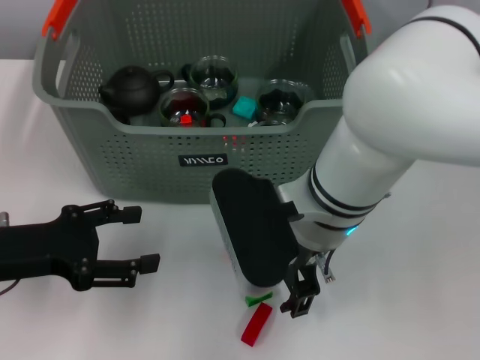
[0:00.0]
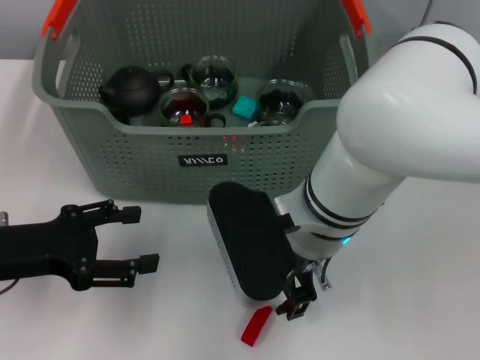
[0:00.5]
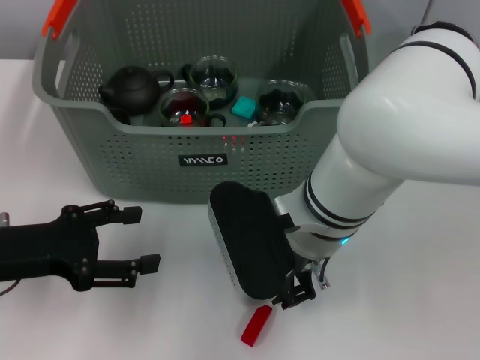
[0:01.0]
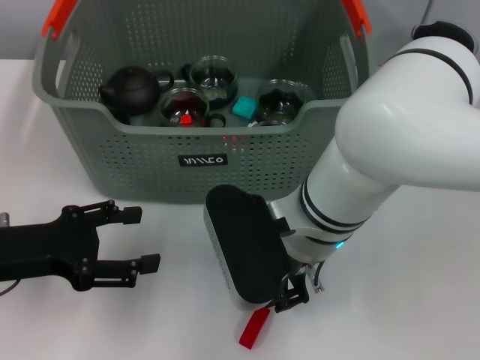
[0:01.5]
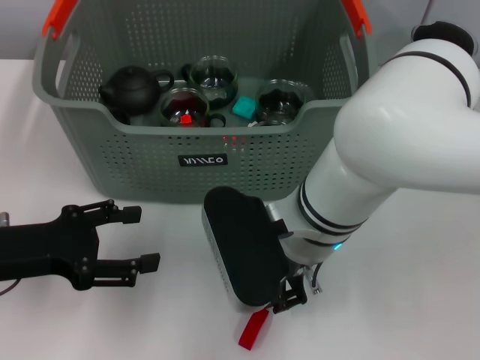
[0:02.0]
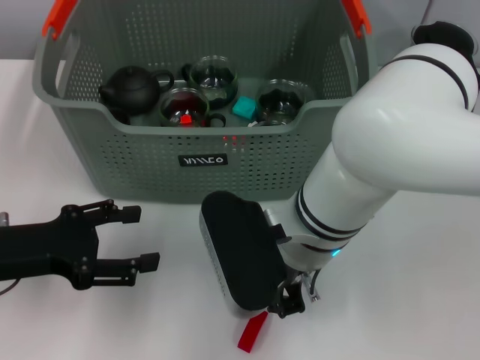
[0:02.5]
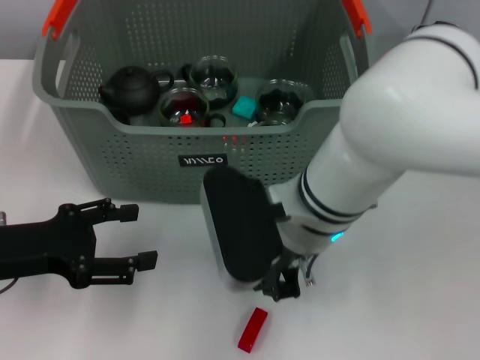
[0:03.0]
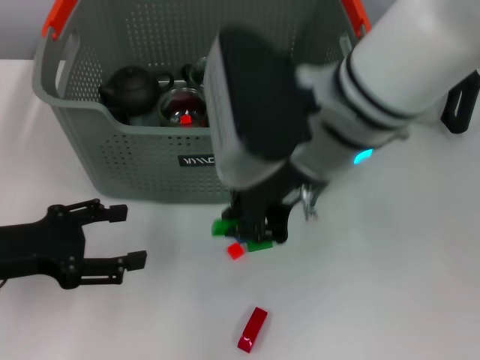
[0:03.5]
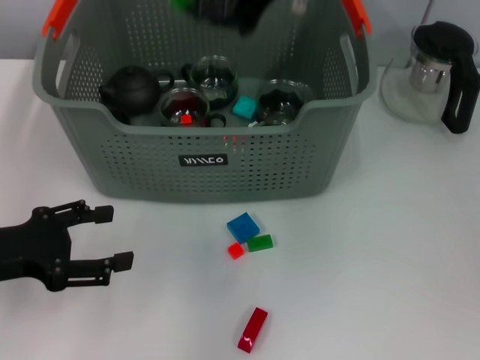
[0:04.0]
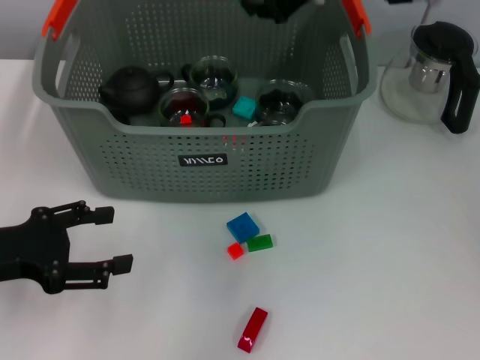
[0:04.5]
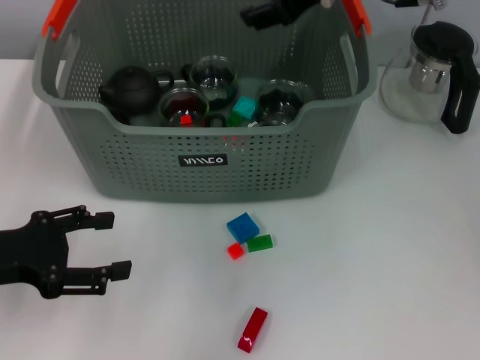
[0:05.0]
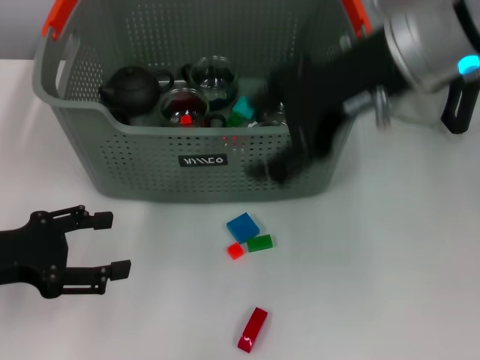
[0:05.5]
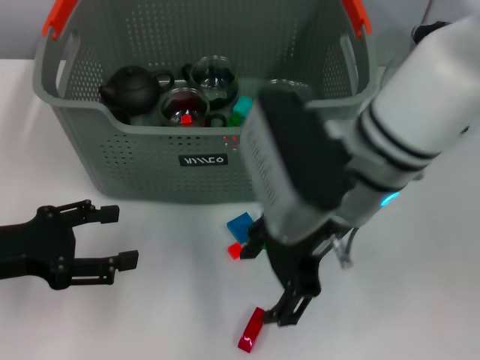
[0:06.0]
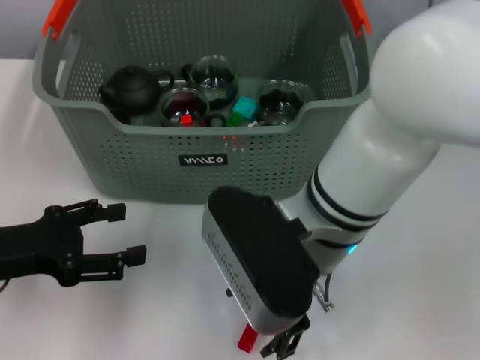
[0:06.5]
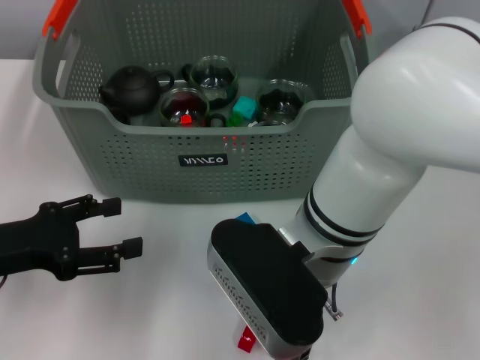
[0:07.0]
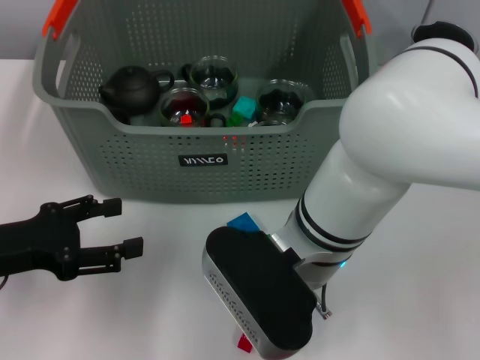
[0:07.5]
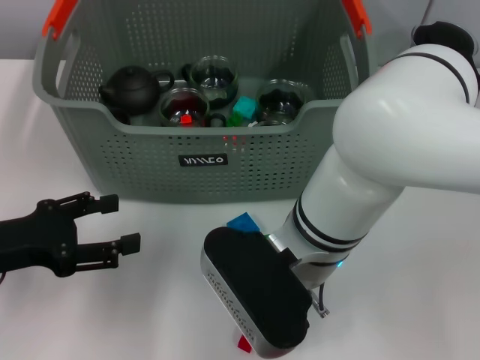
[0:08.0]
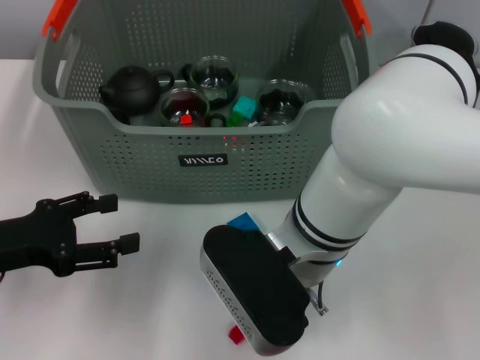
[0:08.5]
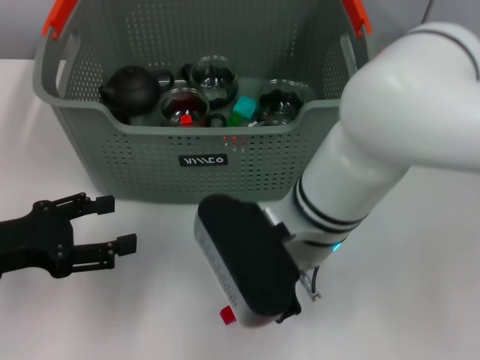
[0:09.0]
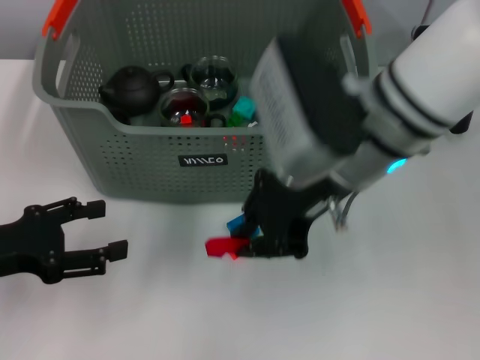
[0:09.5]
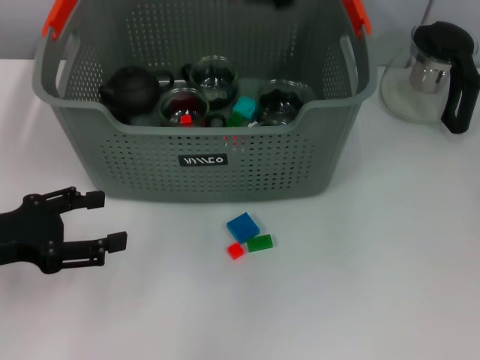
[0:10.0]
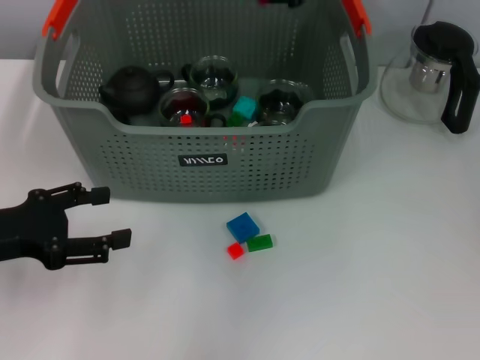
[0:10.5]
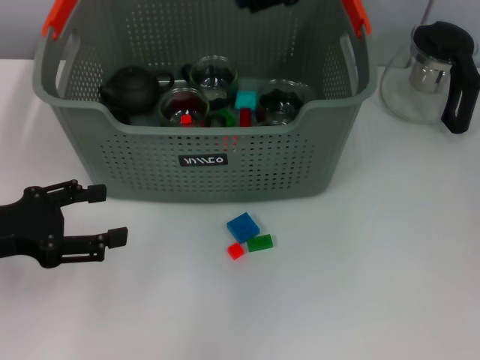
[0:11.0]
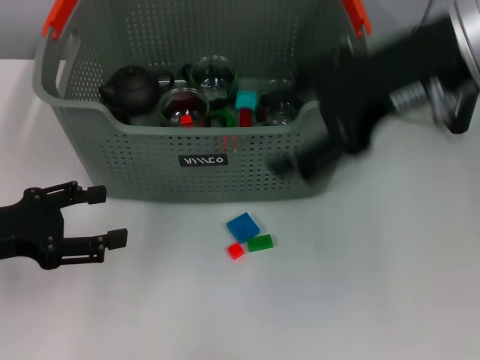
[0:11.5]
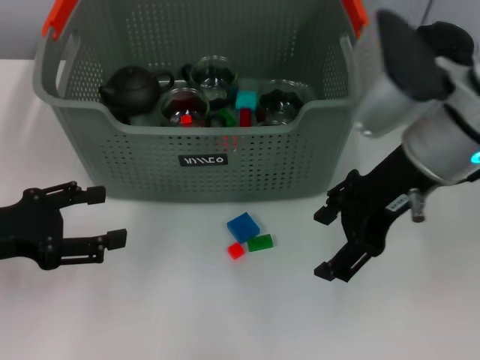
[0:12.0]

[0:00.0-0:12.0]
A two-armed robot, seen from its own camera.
Task of the whole recording: pick up the teacup on the table and place it into the storage bin, pick up the block on the table and place it into the storage bin.
Step, 0:00.0 to 0:02.0: Grasp the green block with right gripper.
Step, 0:02.5 to 0:04.5: Place the green block in the storage box with right gripper.
Step, 0:05.0 to 0:08.5: Grasp the red block with right gripper.
Step, 0:09.0 to 0:10.5: Place the red block in the storage box with right gripper.
0:00.0 to 0:02.0: The right gripper closes up.
0:02.0 to 0:04.0: The right gripper shifts roughly 20 cm upward, and closes up.
0:04.0 to 0:06.0: The right gripper is displaced downward by approximately 15 cm, and opens.
0:06.0 to 0:08.0: The right gripper moves downward, roughly 5 cm, and closes.
0:08.0 to 0:10.0: The right gripper moves upward, forward and to the right, about 25 cm, and closes.
0:10.0 to 0:12.0: The right gripper goes some 10 cm downward and backward, and opens up.

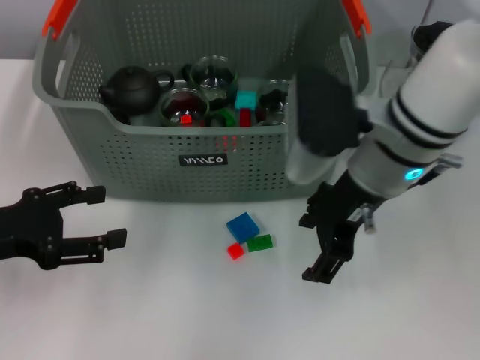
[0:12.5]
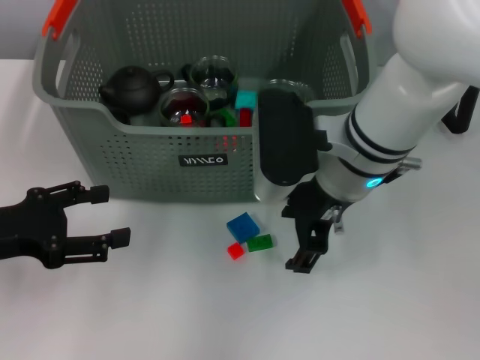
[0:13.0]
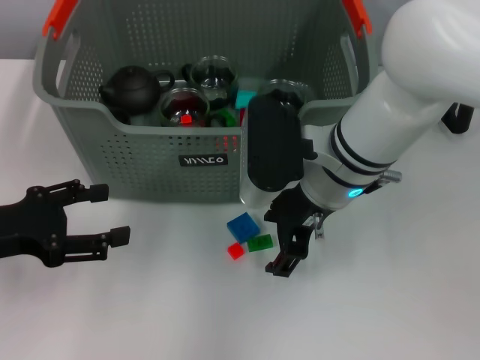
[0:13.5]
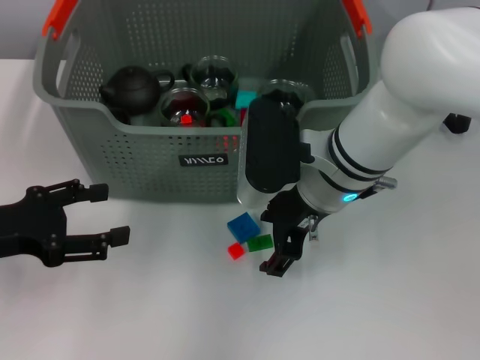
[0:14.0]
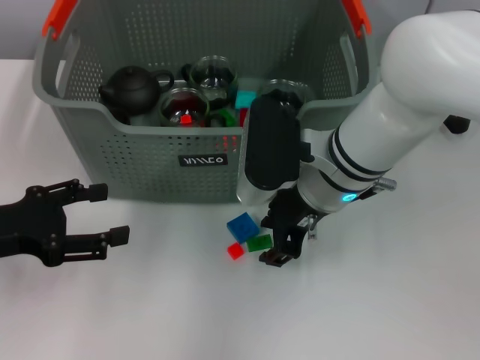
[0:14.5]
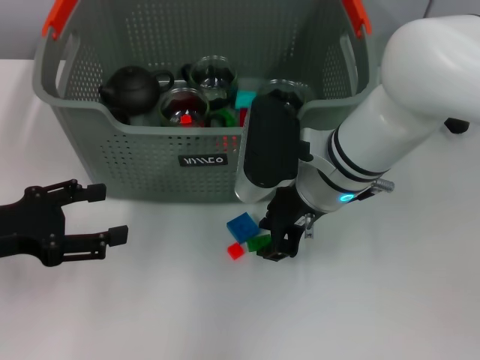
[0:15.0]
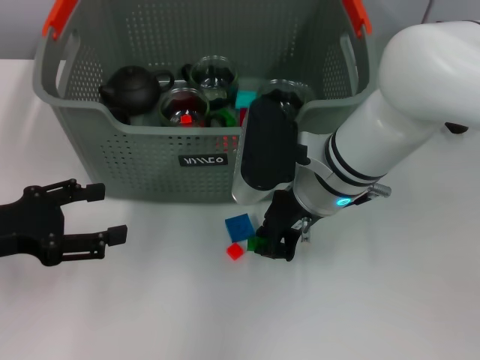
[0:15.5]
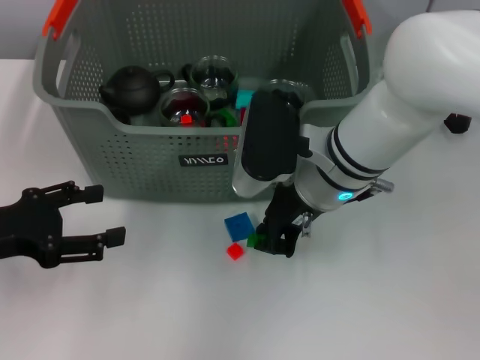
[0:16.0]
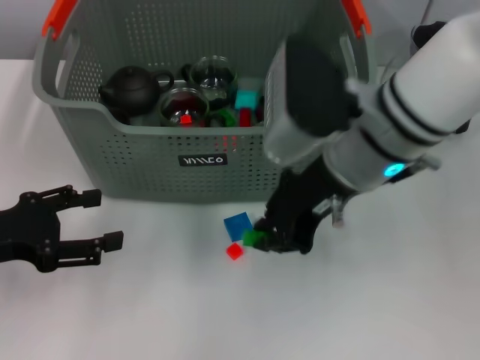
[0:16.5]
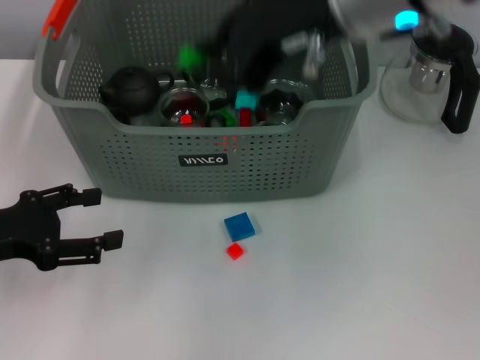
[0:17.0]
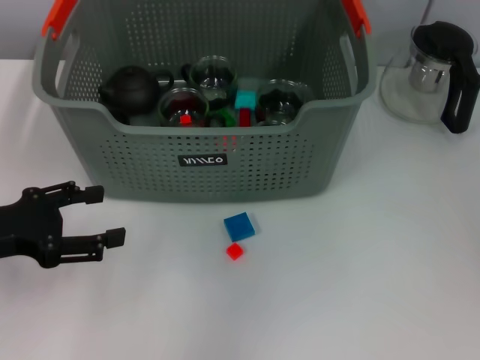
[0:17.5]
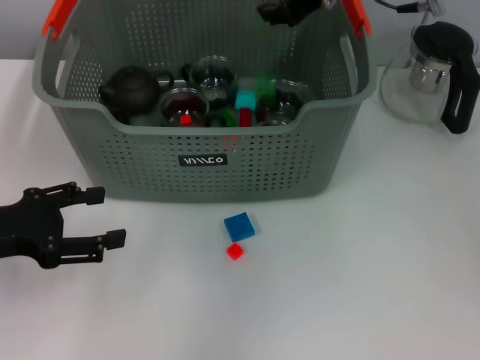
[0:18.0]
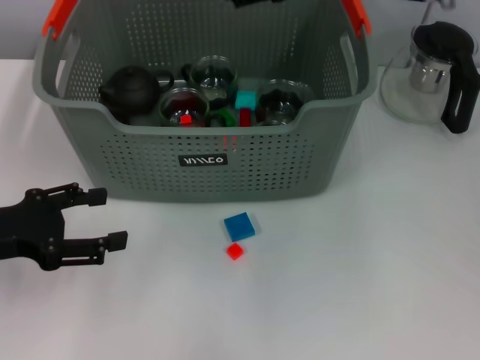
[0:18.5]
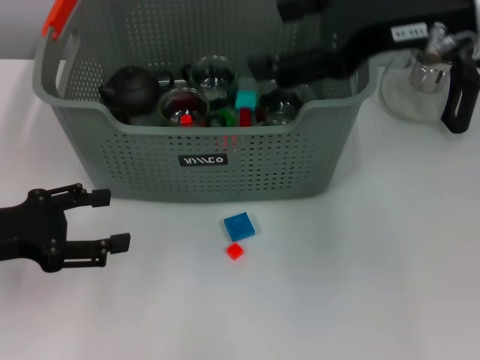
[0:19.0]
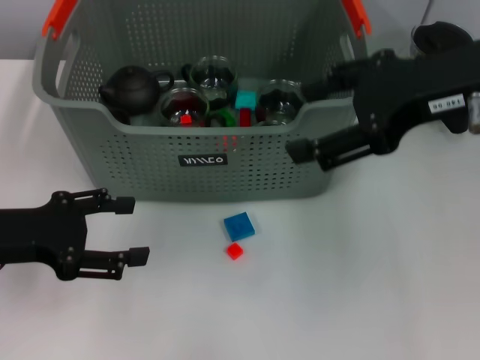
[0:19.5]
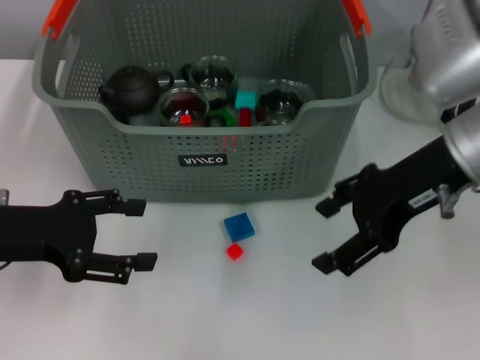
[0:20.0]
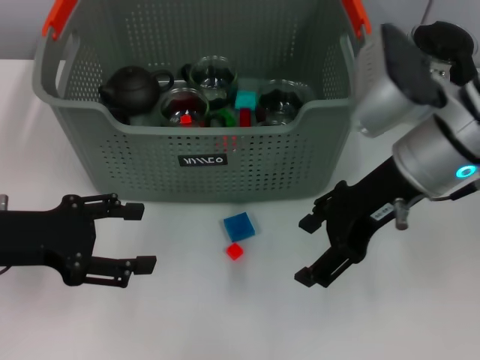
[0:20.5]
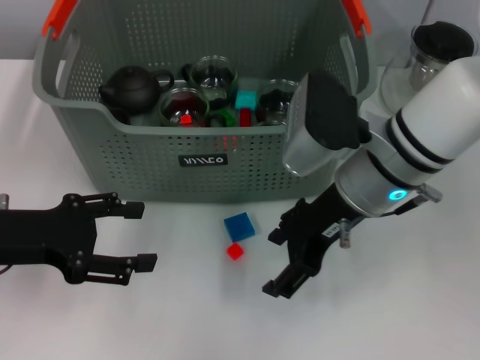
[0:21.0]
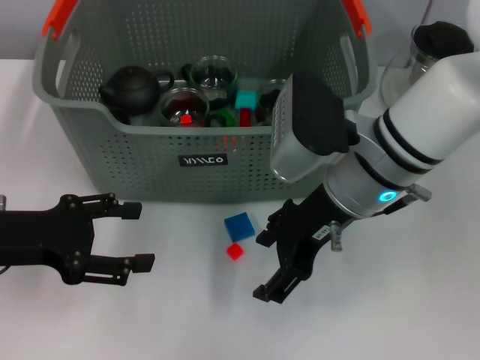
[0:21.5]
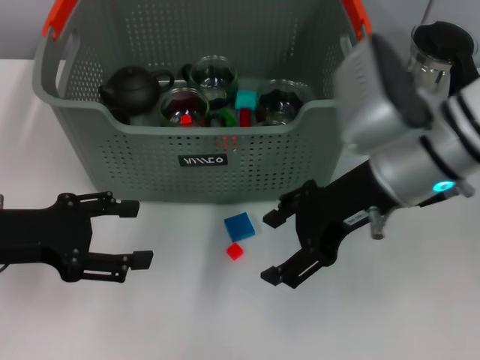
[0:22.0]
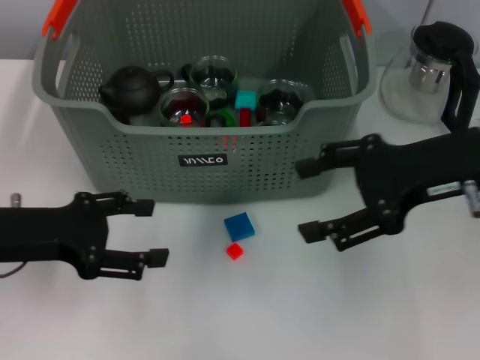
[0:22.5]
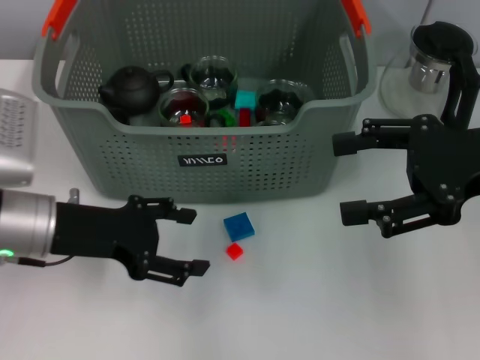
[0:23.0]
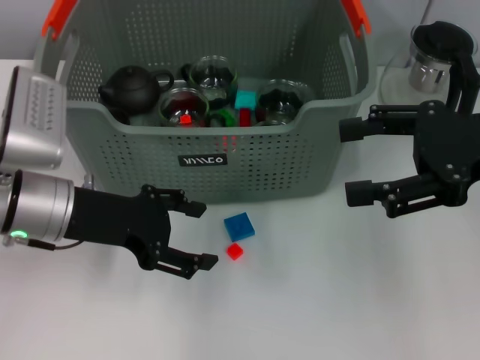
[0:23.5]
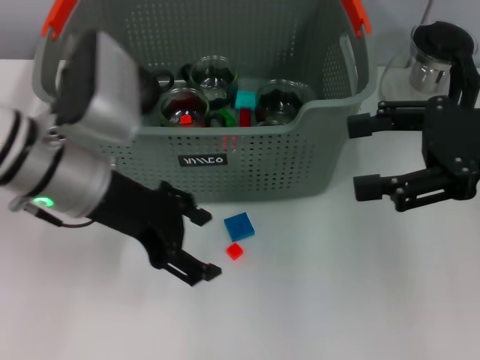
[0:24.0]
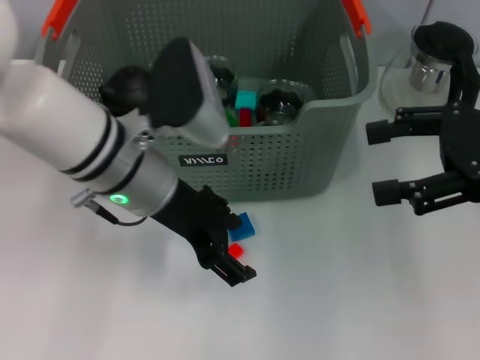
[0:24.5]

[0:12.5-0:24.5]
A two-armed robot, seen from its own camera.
Task of the whole recording: pick up the teacup on the table and place it into the storage bin, pick up the block on the table and place it into the storage bin.
Step, 0:12.5 to 0:15.5: Grasp the green block with right gripper.
Step, 0:16.0 to 0:18.0: Place the green block in the storage box with right gripper.
0:12.5 to 0:14.5: The right gripper shifts roughly 5 cm downward.
0:14.5 to 0:16.5: The right gripper shifts some 10 cm upward, and closes up.
0:16.5 to 0:18.5: The right gripper is displaced upward and forward by approximately 10 cm, and opens.
0:18.5 to 0:20.5: The right gripper shifts approximately 10 cm downward and backward.
0:20.5 to 0:22.5: The right gripper goes some 5 cm to the right.
0:22.5 to 0:24.5: The left gripper moves to the right, approximately 15 cm; the right gripper travels to the right by roughly 5 cm.

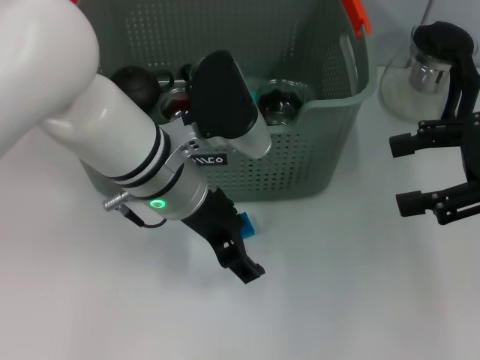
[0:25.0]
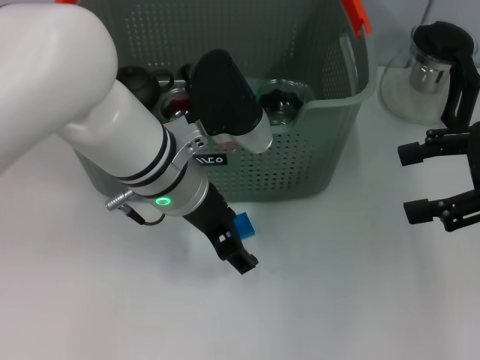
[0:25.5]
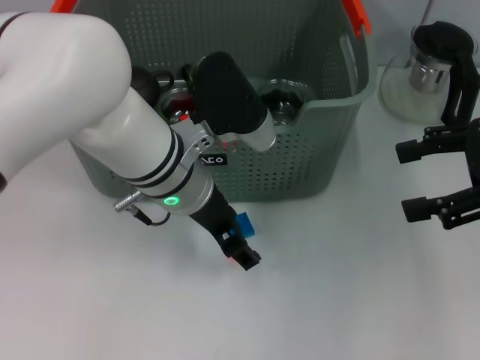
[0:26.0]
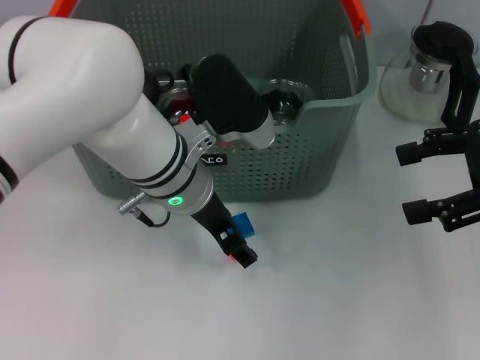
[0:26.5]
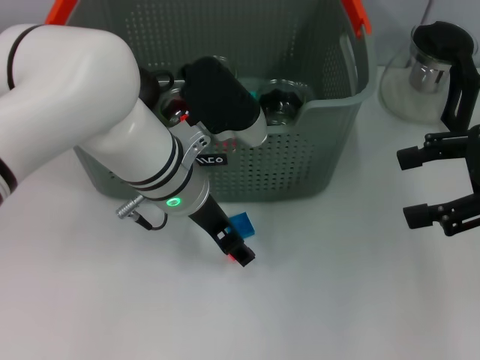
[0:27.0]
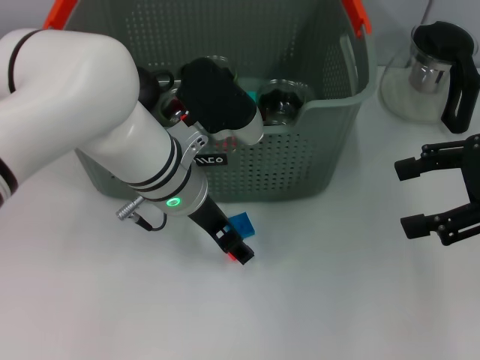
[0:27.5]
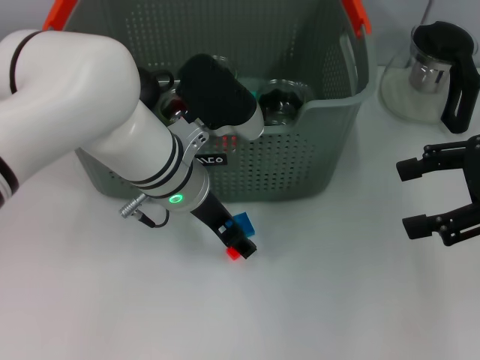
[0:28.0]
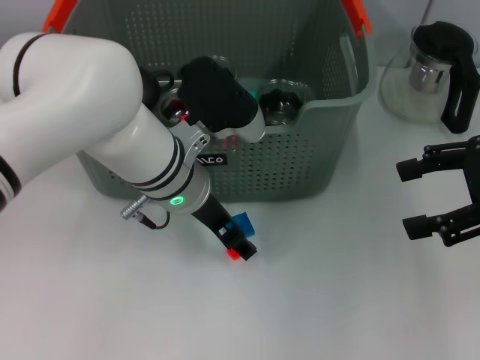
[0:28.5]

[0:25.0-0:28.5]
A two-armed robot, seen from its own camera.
Task of the whole recording: pick up the teacup on the table and place it into the storage bin, pick up the block on the table and place it into the storage bin.
0:25.0 to 0:27.0: The grippers stay close to where they were, moving slightly.
0:27.0 to 0:28.5: Both grippers stay put.
